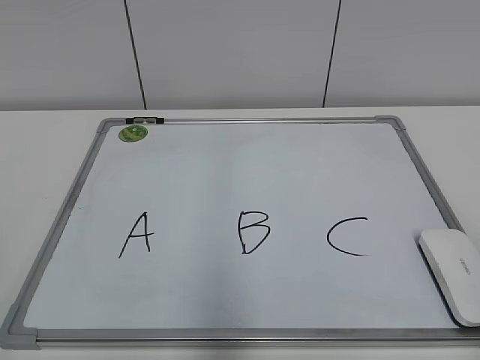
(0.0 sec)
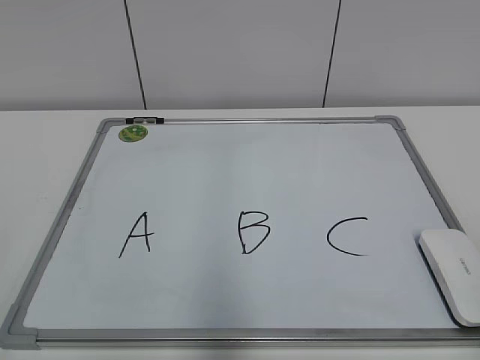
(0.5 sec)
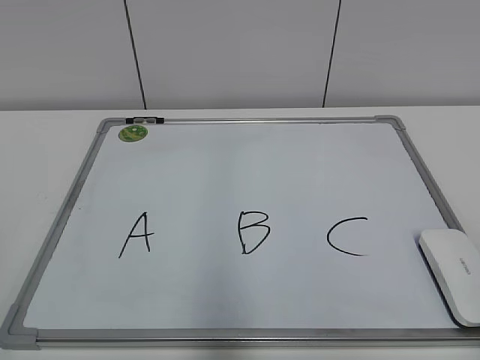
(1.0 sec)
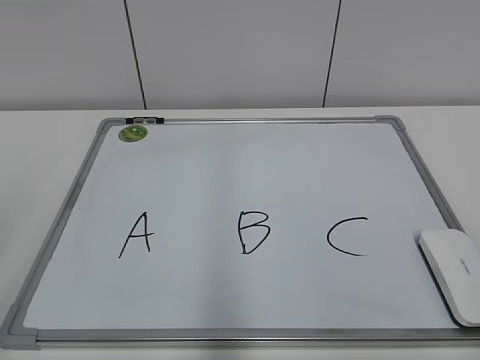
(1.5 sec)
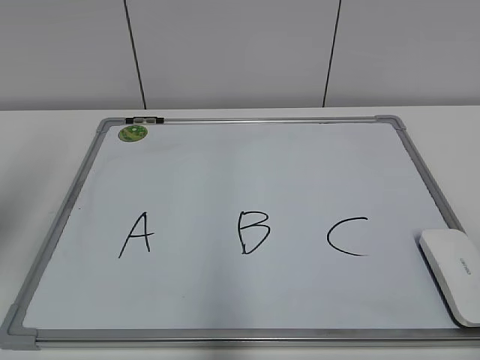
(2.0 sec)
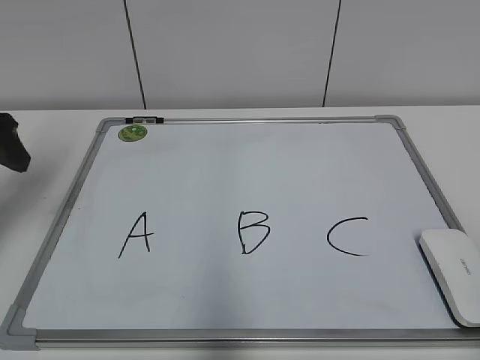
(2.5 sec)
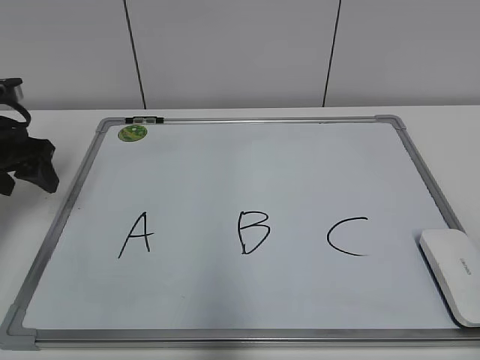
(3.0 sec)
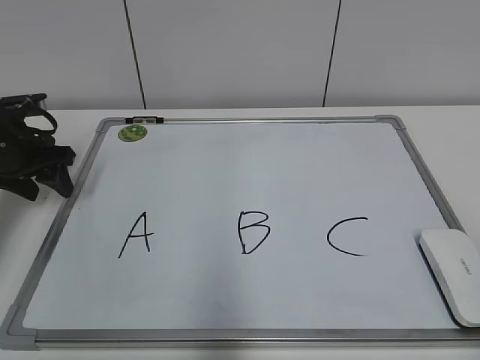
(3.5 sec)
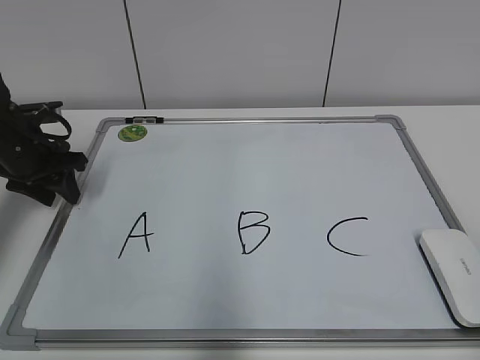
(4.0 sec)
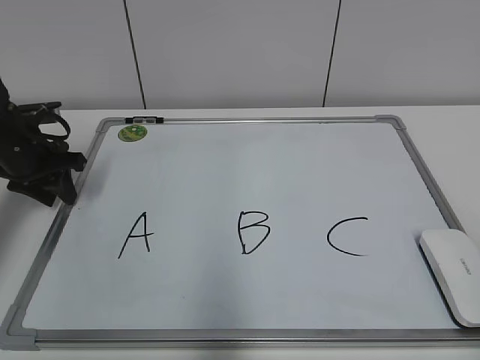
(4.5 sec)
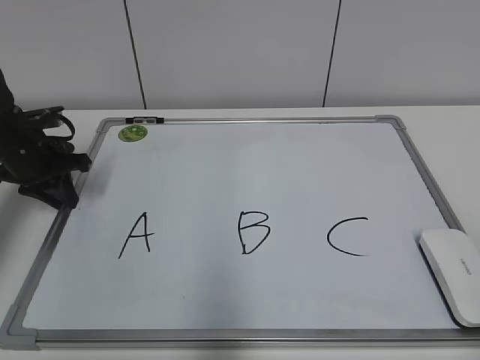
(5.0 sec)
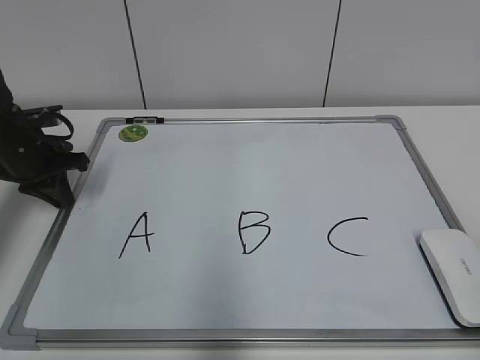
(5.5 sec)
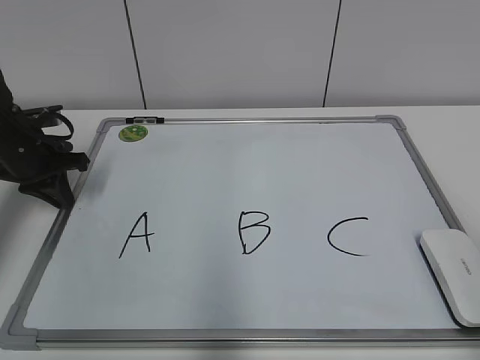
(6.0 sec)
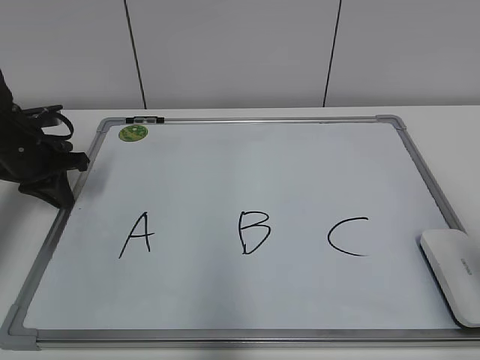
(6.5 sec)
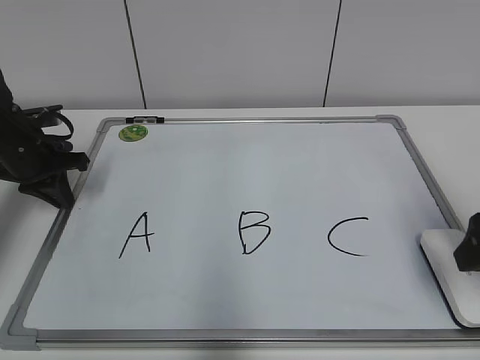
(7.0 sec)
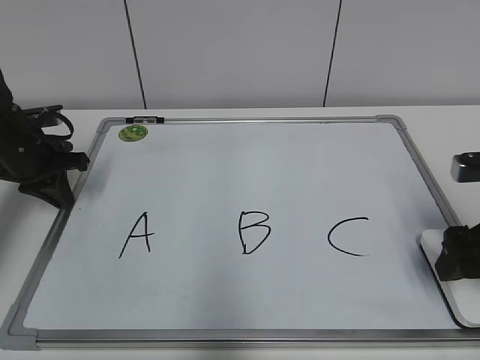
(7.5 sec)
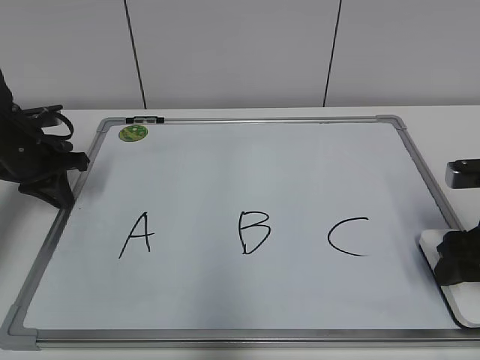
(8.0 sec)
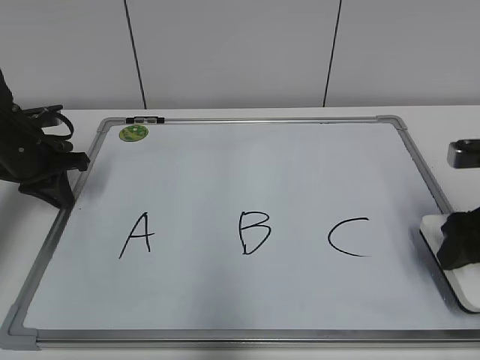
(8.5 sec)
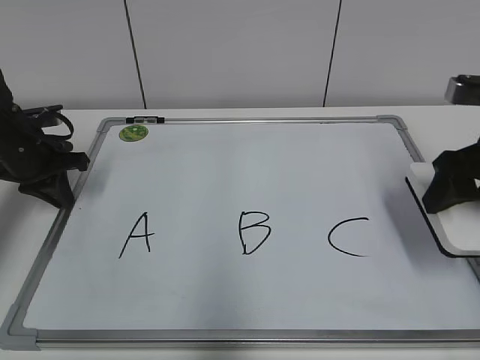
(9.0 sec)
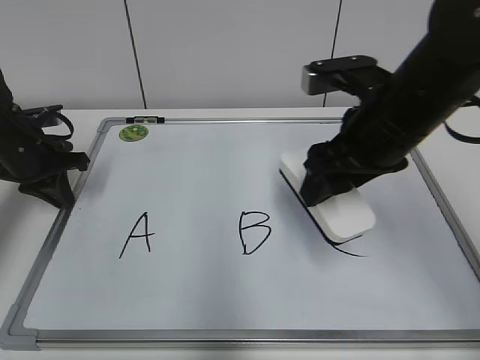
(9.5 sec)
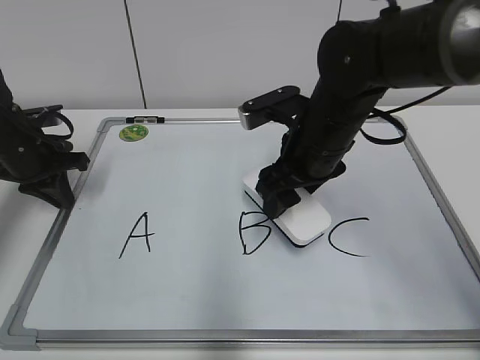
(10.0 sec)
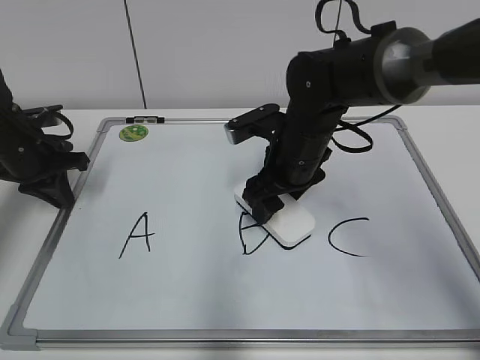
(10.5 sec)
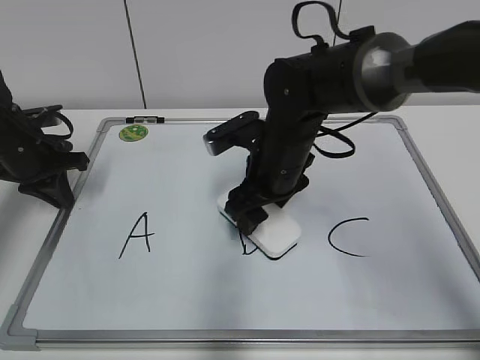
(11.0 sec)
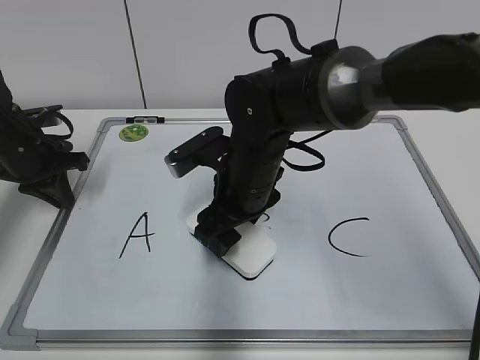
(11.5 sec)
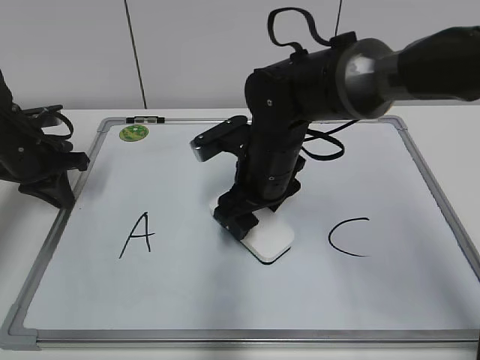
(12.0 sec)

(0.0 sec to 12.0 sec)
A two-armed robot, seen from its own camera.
Task of the whole recording: pick up the eraser on the blackboard and erase the letter "B".
Step, 0.0 sec - 4.5 sec: Hold the drawing board steady with your left hand.
Step, 5.5 sec - 8.0 sec: Grab the eraser with your right hand.
2.0 sec - 4.0 sec: The left gripper goes about 25 cm forward and downward, and closes up.
4.0 sec - 6.0 sec: The left gripper closes.
6.0 sec - 8.0 sec: The right gripper travels forward and downward by some 25 cm, and opens, then closes again.
8.0 sec - 10.0 sec: The right gripper is displaced to the left and forward by approximately 20 cm.
10.0 sec - 12.0 sec: The right gripper moves to the left, roughly 5 cm.

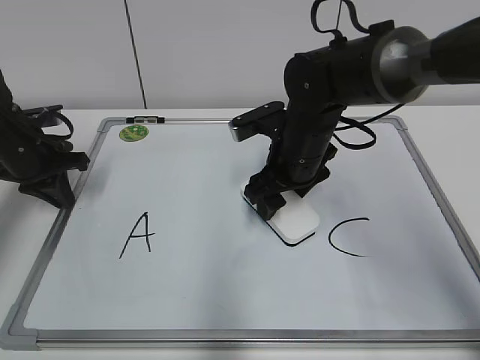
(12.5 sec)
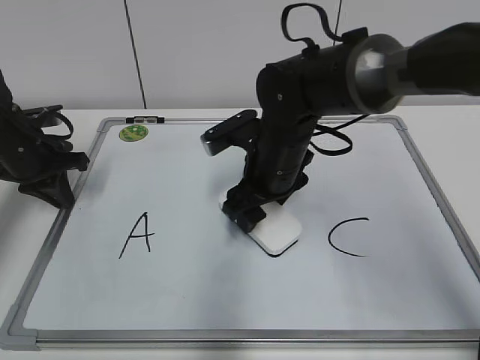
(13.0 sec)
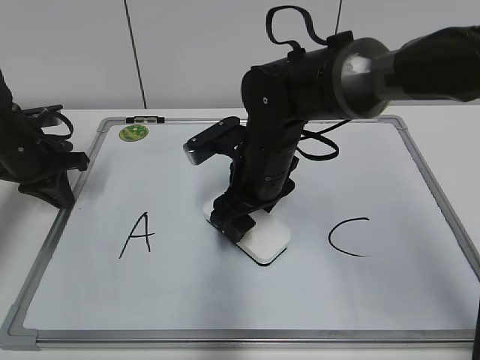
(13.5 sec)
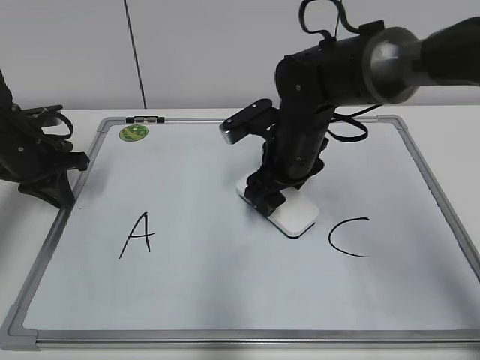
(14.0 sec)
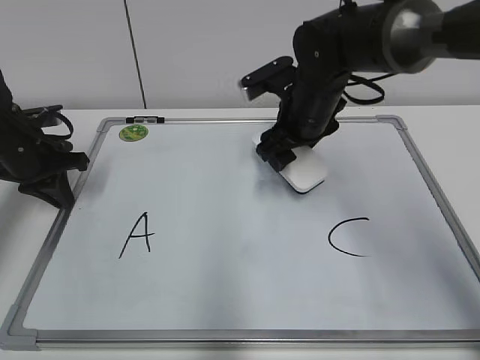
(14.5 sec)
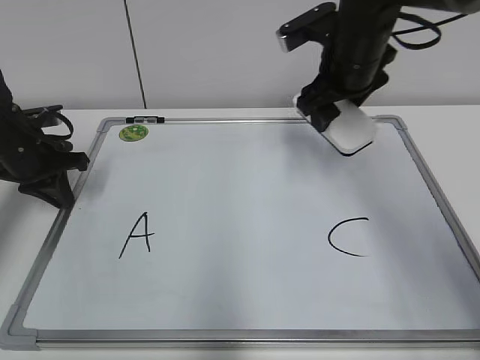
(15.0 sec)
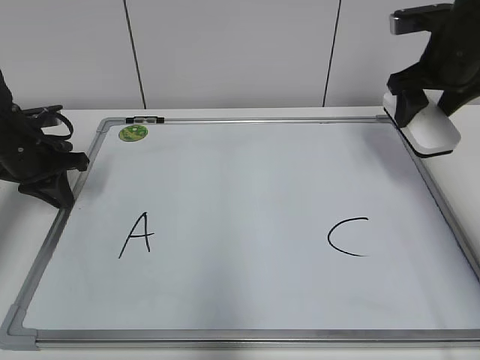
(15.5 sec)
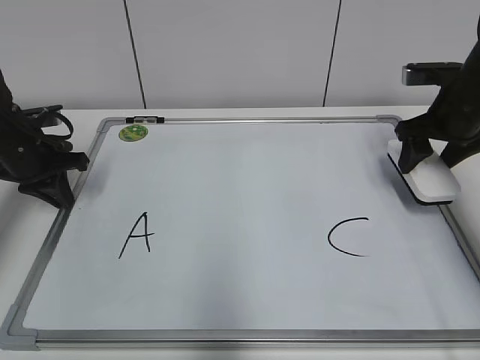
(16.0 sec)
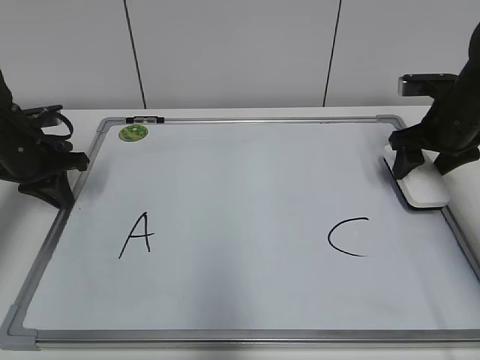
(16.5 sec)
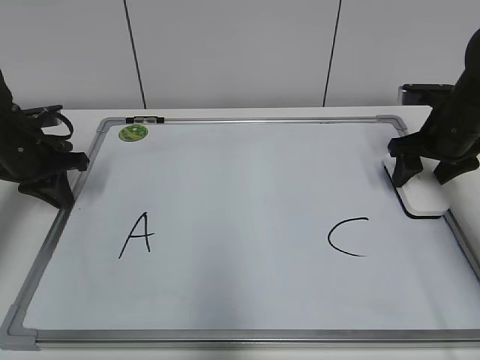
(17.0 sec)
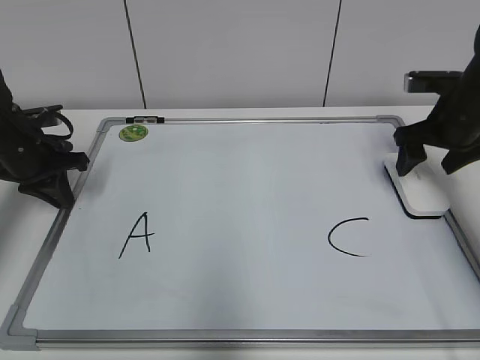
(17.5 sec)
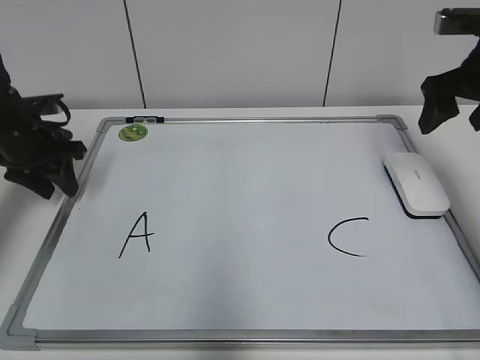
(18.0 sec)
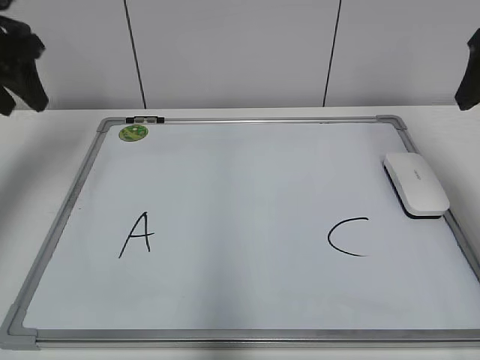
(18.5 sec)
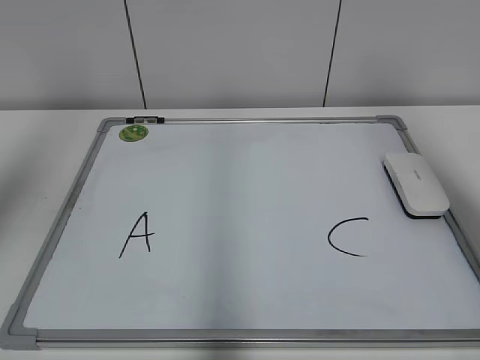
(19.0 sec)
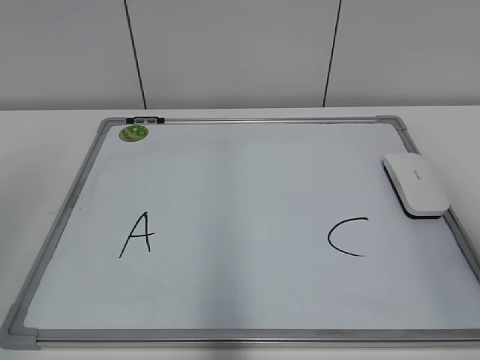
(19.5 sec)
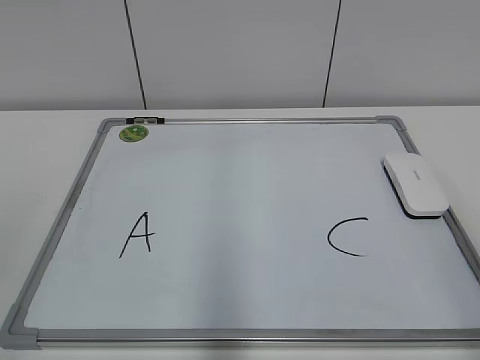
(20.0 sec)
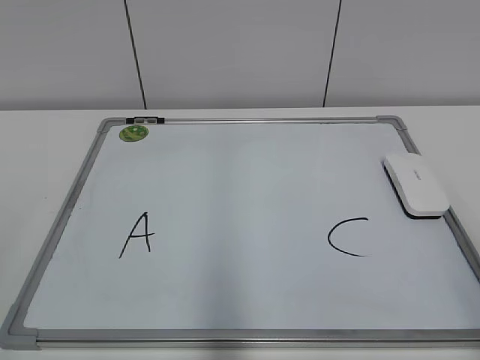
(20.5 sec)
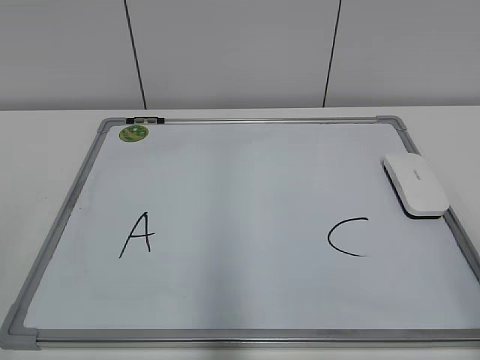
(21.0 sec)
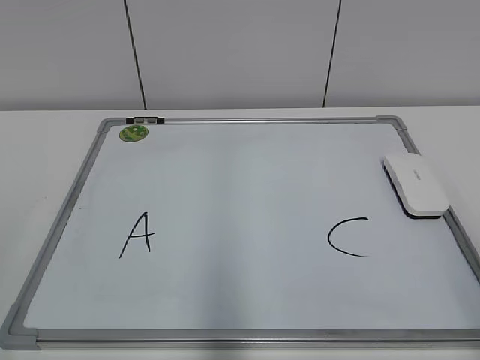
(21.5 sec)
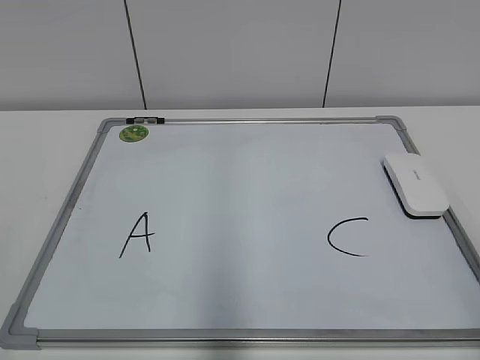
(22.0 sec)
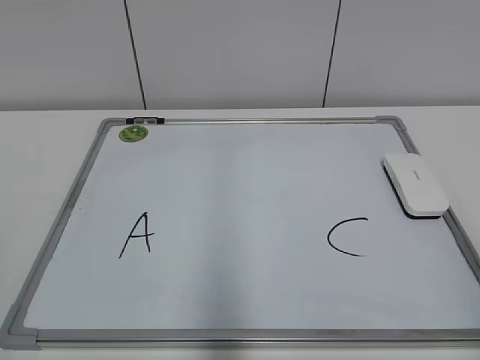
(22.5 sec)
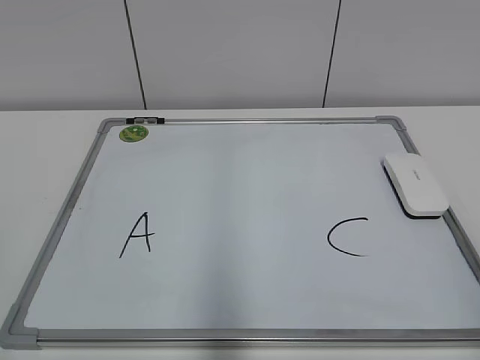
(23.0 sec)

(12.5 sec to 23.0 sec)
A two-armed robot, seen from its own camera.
Task of the whole recording: pick up the eraser on the blackboard and erase the letter "B".
Step, 14.5 sec - 17.0 sec: Put down the eraser with your right hand.
12.5 sec - 14.5 sec: The right gripper shifts by approximately 5 cm.
14.5 sec - 16.5 sec: The right gripper shifts approximately 20 cm to the right.
16.5 sec - 19.0 sec: Both grippers travel together upward and backward, approximately 30 cm. The left gripper opens its fingers.
19.0 sec - 21.0 sec: Both grippers travel together backward and downward, roughly 25 cm. The right gripper closes up.

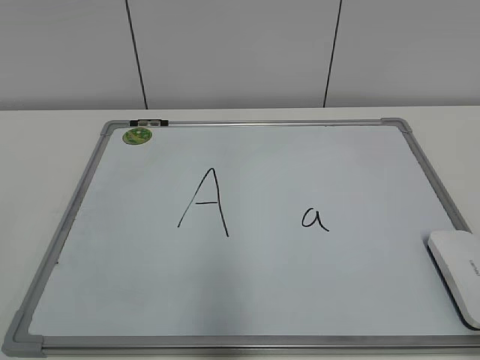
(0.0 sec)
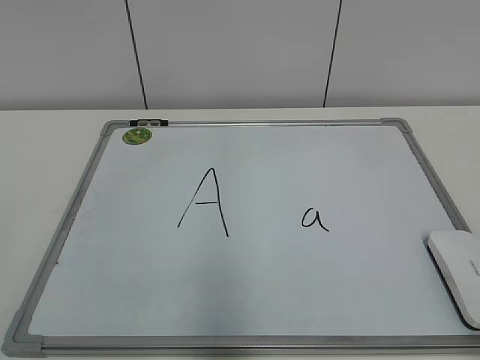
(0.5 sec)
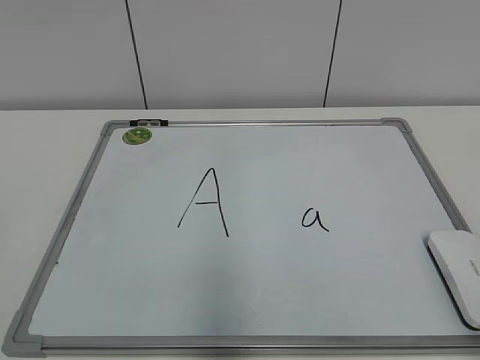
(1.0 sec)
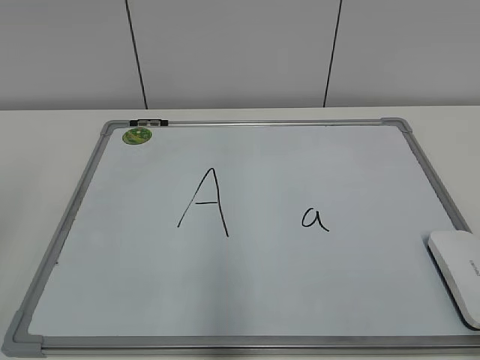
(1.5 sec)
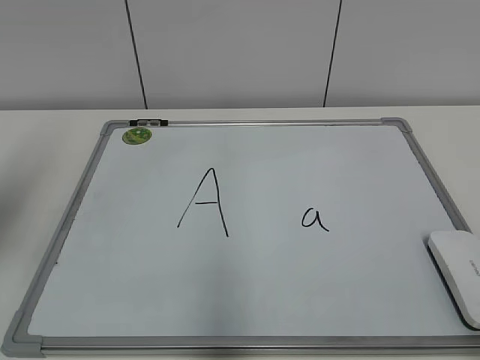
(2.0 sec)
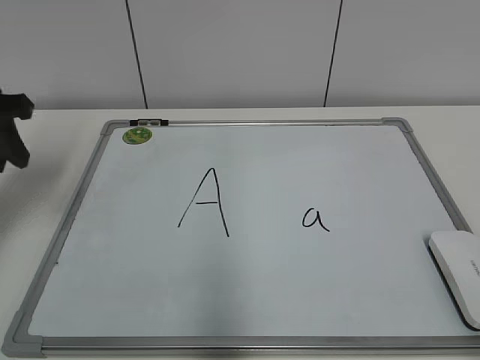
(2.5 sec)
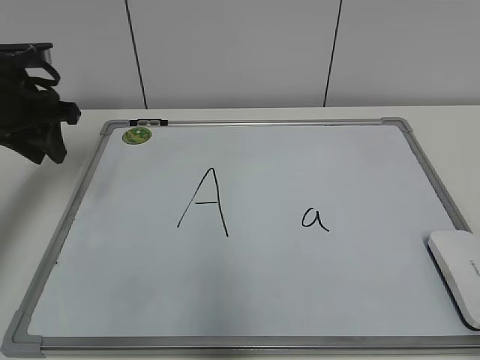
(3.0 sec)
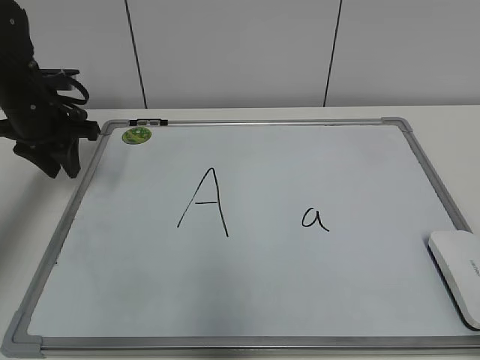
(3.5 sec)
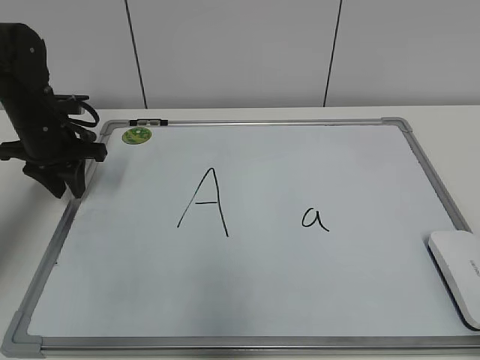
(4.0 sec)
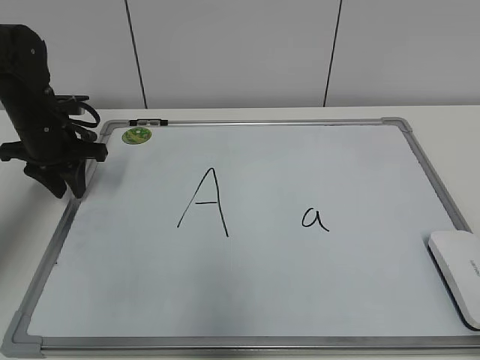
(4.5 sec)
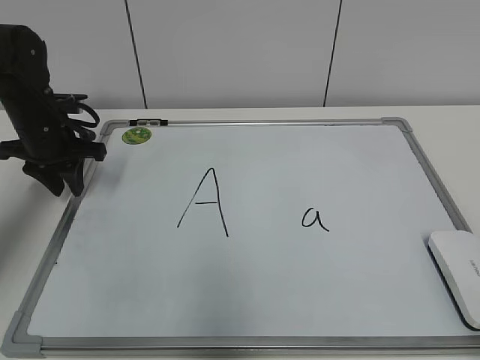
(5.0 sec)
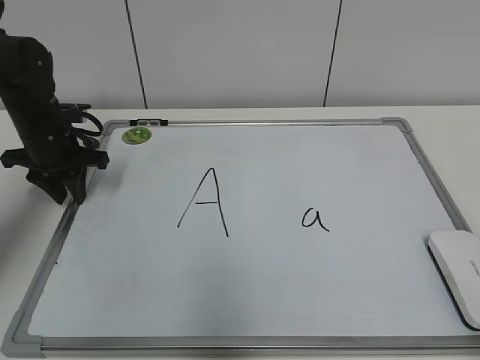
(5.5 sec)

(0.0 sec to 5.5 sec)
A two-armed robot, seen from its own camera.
Task of the whole recording: pick up the eraser on the blackboard and erase the letter "a".
2.0 sec - 3.5 sec: The left gripper is displaced forward and downward by approximately 25 cm.
3.5 sec - 5.5 sec: The left gripper is displaced downward by roughly 5 cm.
